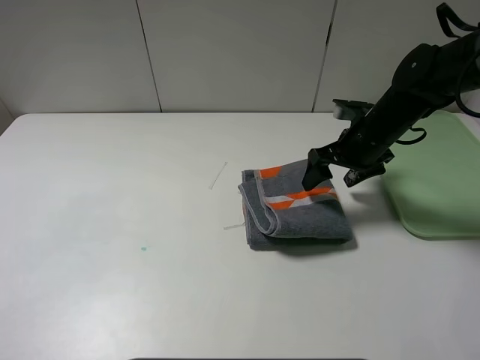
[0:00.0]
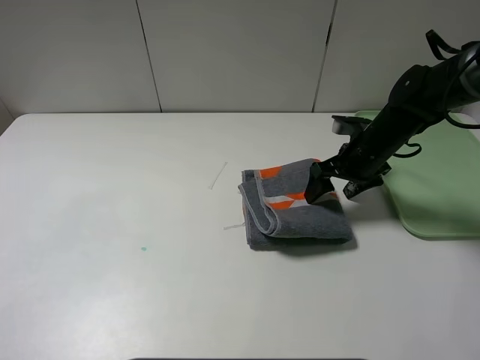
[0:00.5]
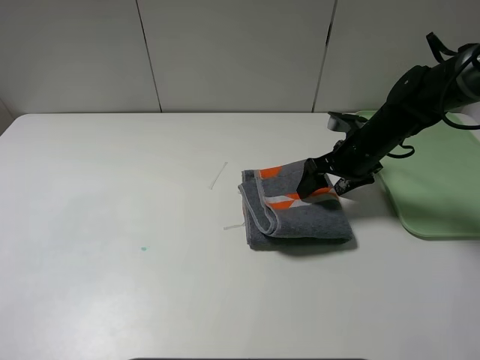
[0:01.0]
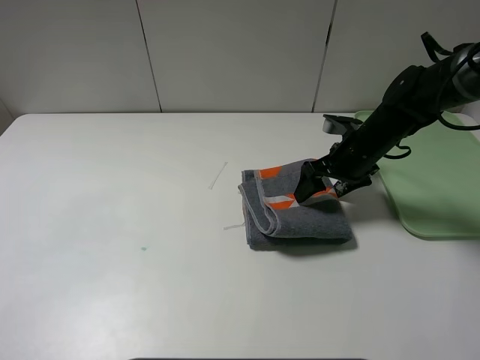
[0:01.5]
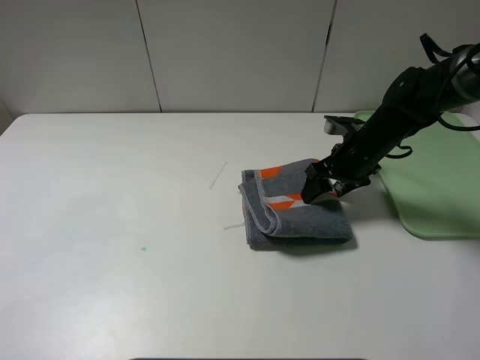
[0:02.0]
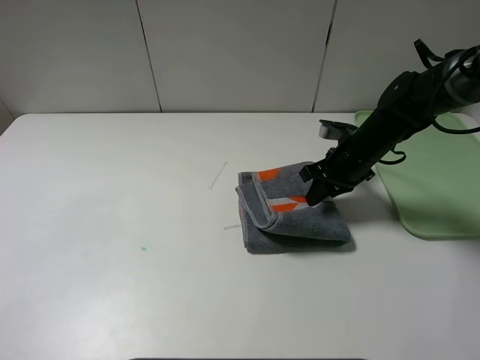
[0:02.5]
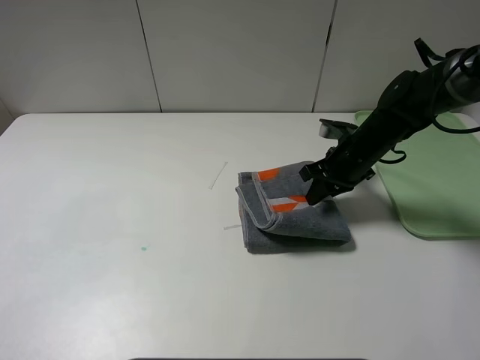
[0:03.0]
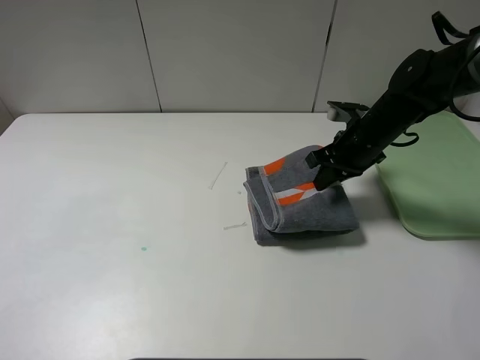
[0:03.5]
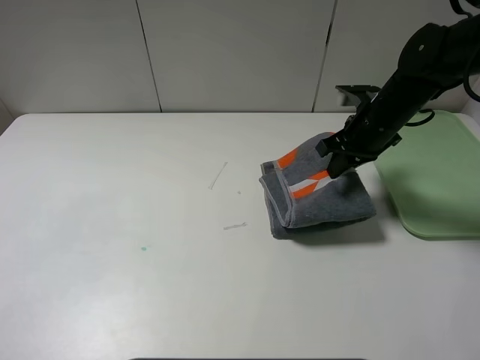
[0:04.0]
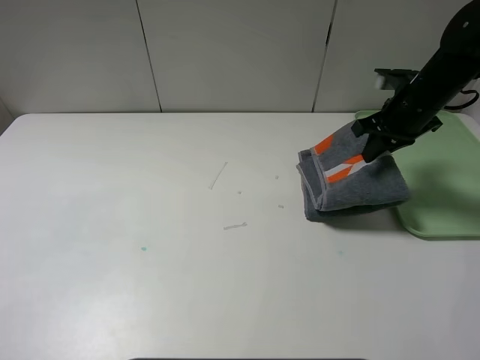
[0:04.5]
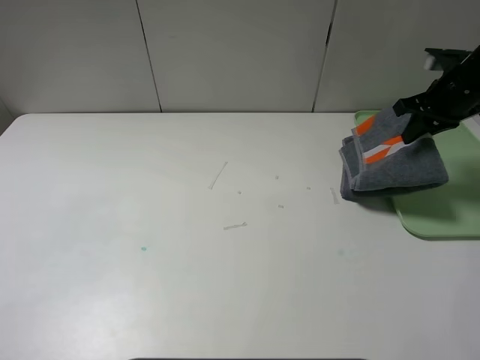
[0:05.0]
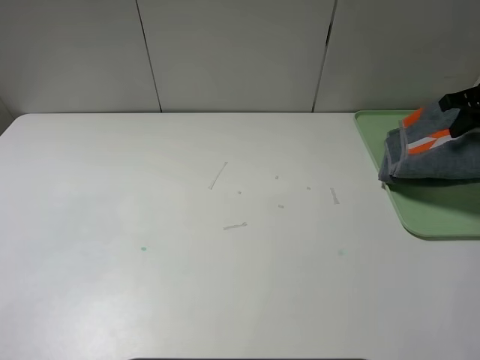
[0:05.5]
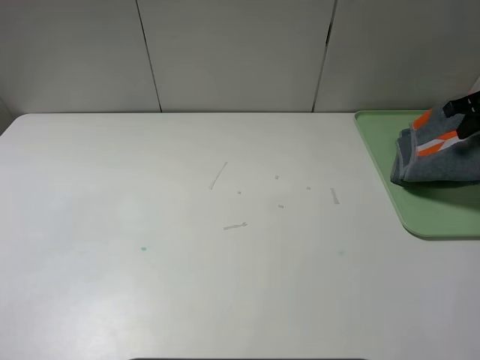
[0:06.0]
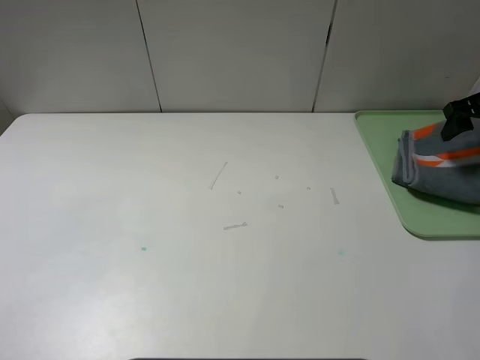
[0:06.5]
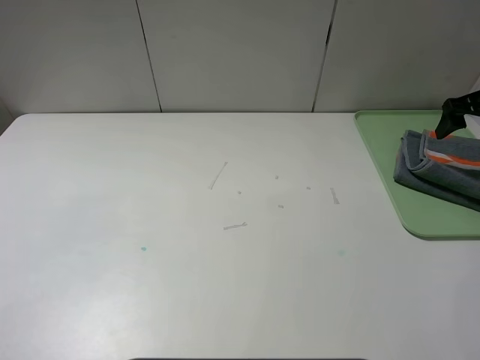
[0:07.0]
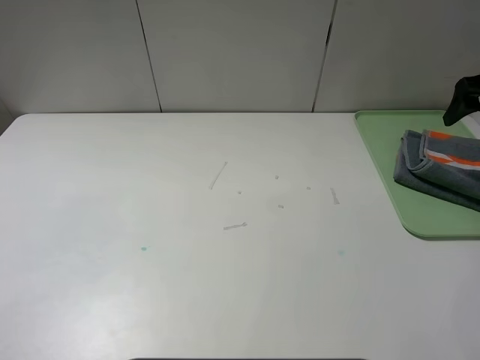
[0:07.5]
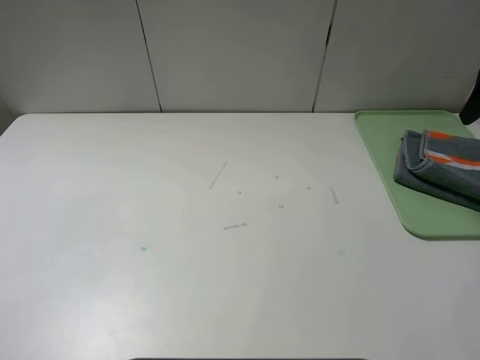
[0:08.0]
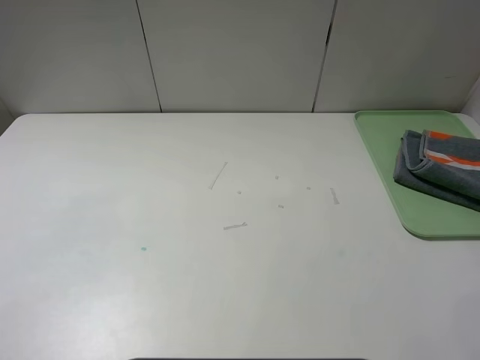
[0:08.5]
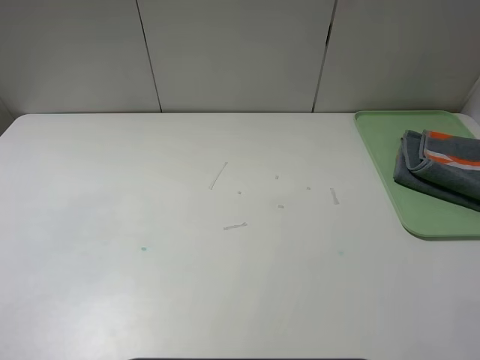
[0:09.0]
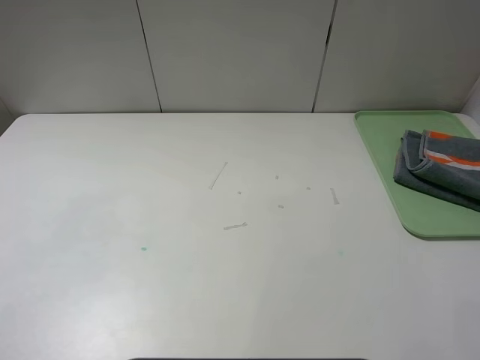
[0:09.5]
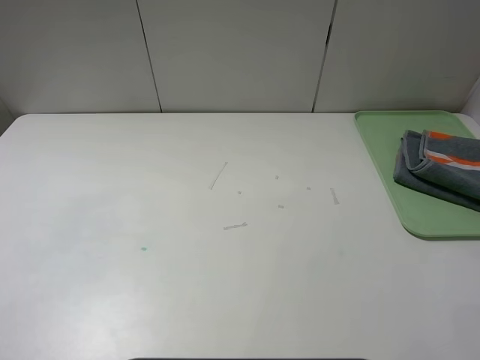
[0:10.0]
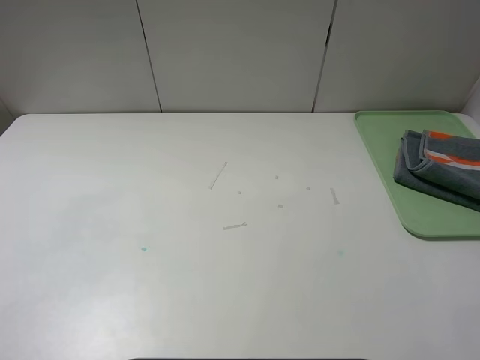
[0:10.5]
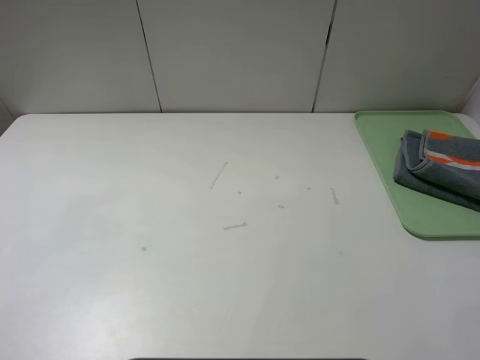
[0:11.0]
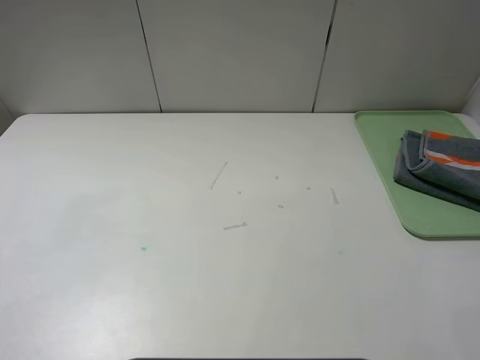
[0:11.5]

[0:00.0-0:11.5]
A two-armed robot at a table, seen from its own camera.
Step, 0:00.0 to 0:07.0: Place the folded grey towel on the tray with the right gripper.
0:00.0 to 0:02.0: The grippers make only small movements.
0:02.0 to 0:04.0: The right gripper travels upward by approximately 5 cm, and closes up.
0:04.0 to 0:06.0: The right gripper shifts roughly 20 cm to the right.
0:06.0 to 0:07.5: The right gripper shifts by approximately 5 cm, and opens its fingers.
0:07.5 to 0:09.5: The right gripper travels backward by roughly 35 cm.
